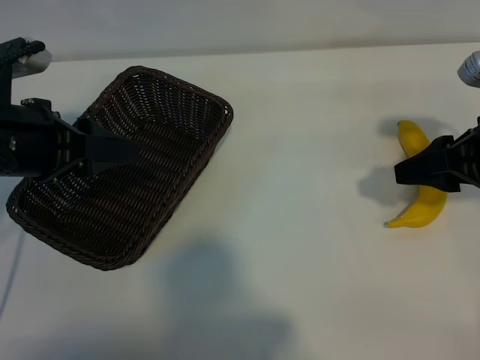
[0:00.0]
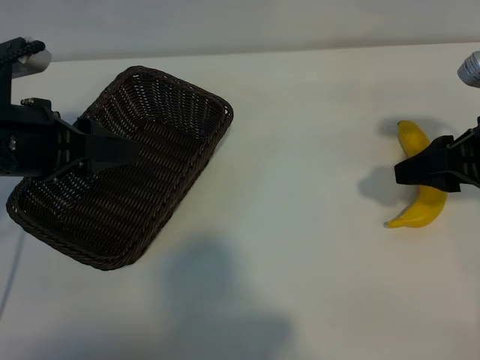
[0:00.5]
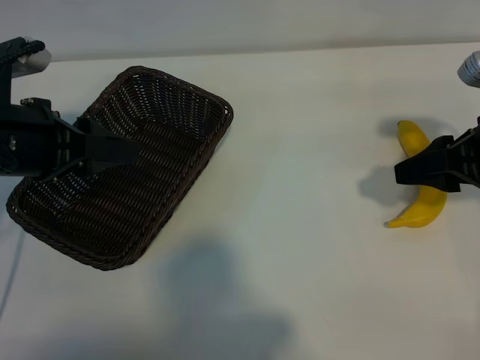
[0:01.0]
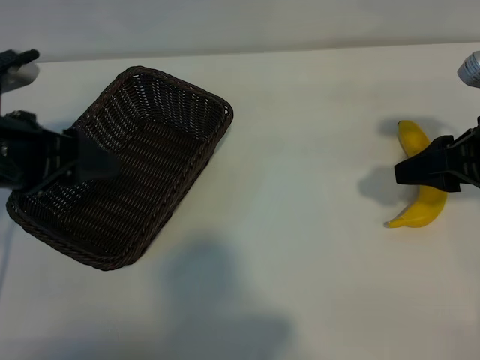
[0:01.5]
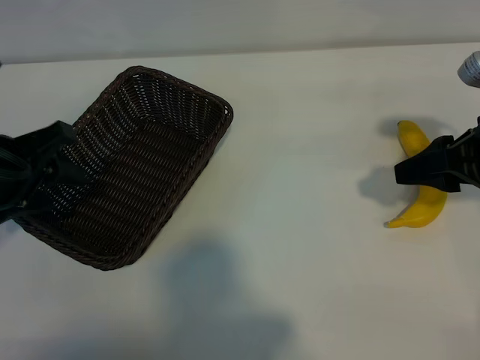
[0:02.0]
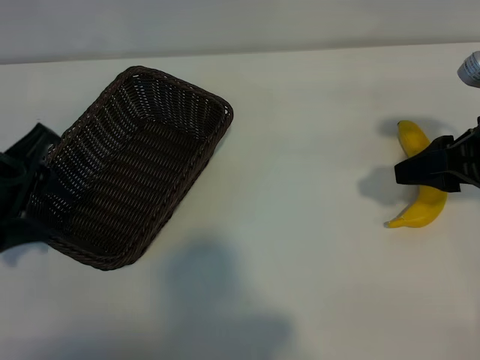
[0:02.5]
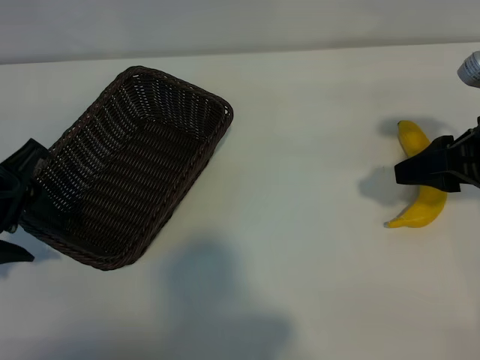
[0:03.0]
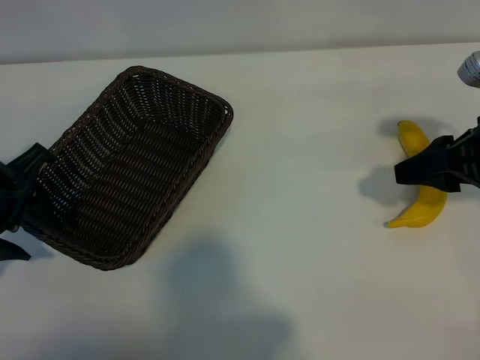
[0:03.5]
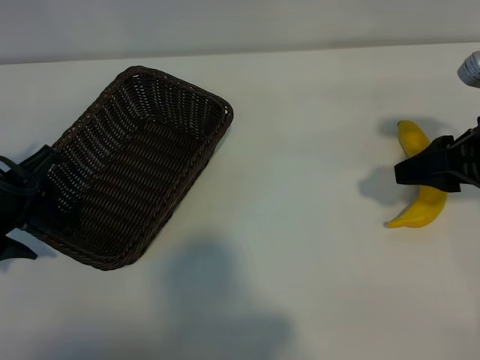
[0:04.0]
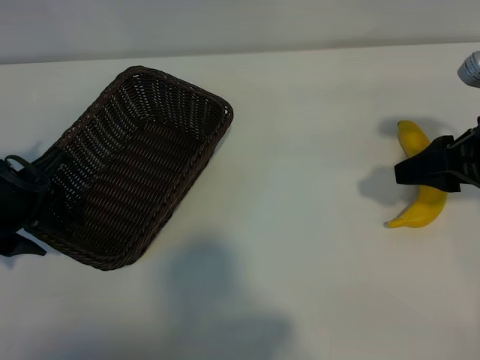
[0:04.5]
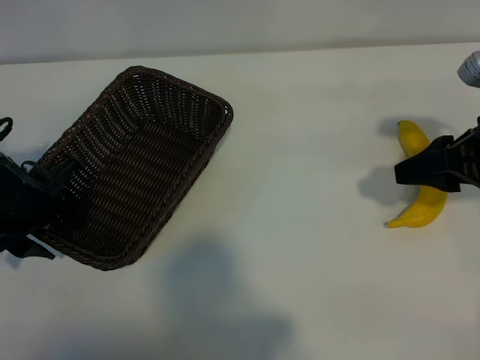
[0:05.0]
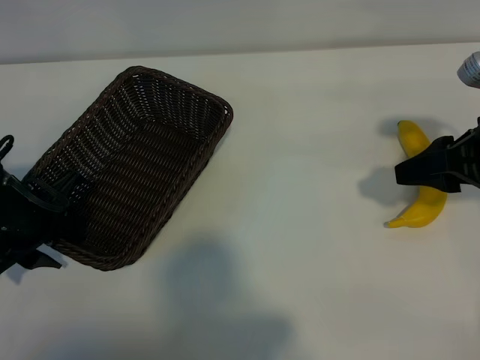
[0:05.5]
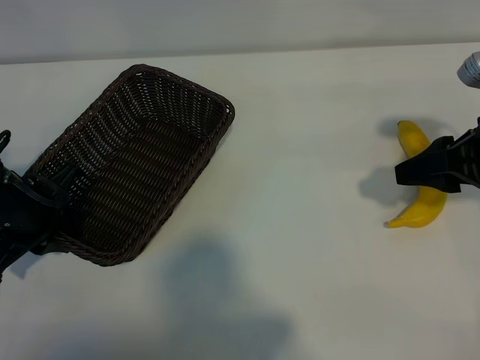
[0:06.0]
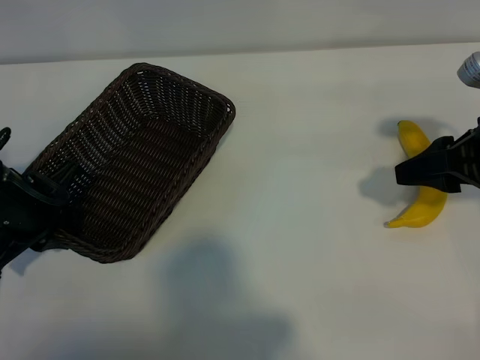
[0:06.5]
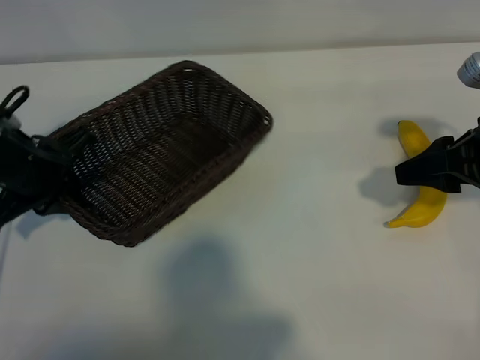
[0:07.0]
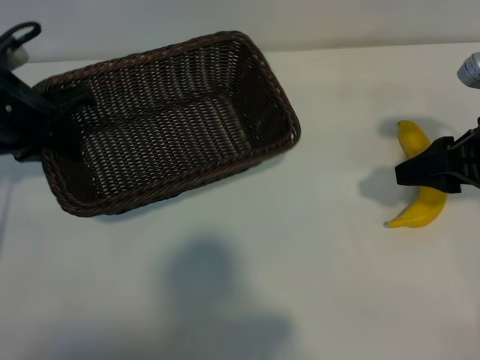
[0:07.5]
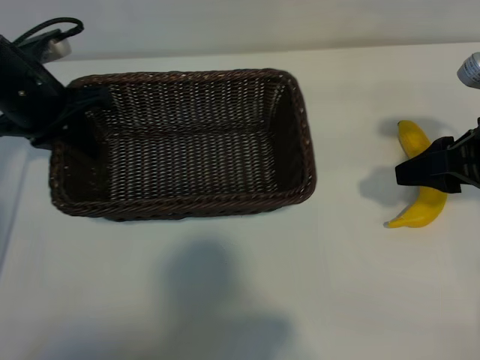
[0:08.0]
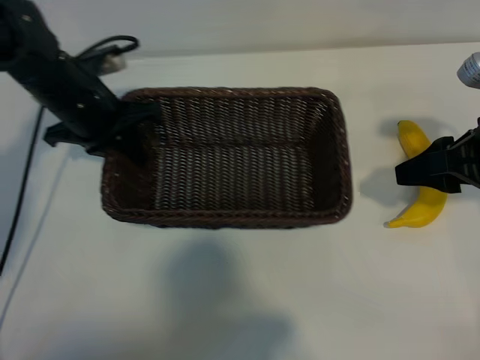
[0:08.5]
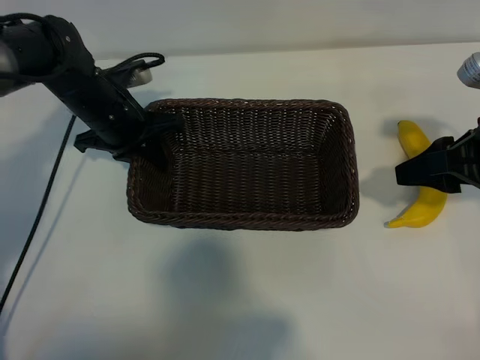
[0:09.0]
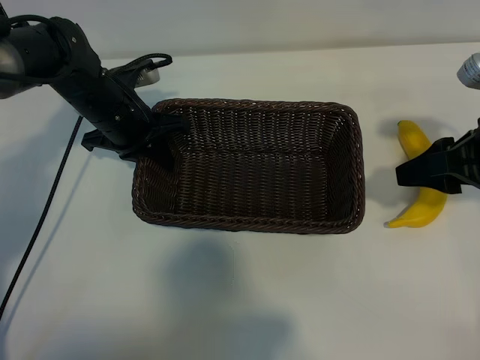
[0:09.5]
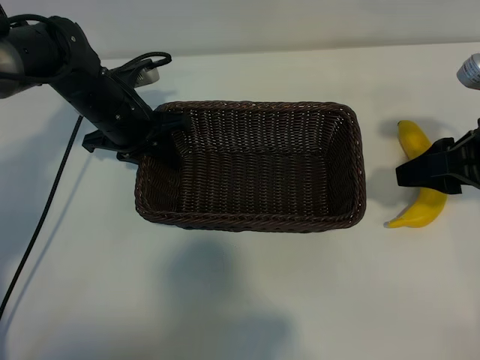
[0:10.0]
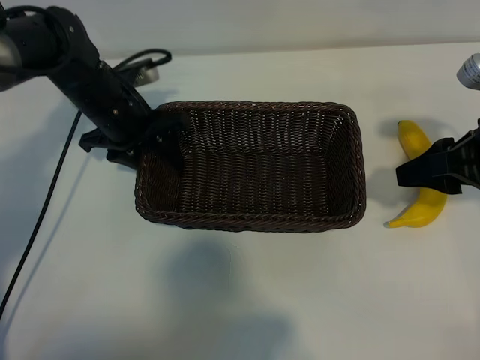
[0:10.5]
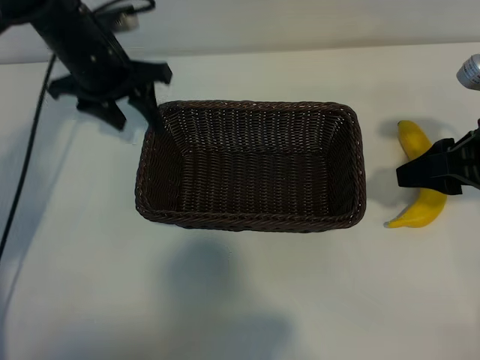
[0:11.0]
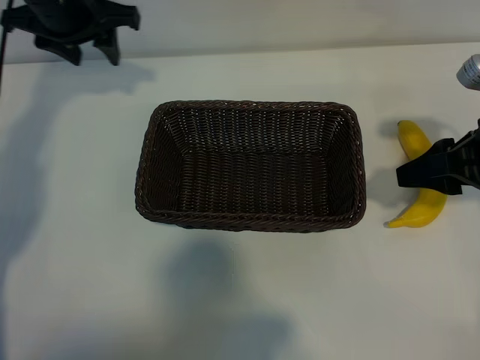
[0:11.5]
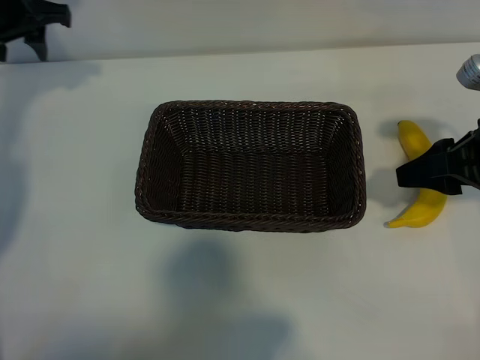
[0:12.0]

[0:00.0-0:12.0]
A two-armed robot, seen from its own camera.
Task of the whole recording: pick up the banana and put it into the basket.
Step, 0:01.0 to 0:06.0: Grasp the basket with the left gripper.
Step, 0:07.0 to 0:10.5: Place the basket in the center of the table with the left gripper.

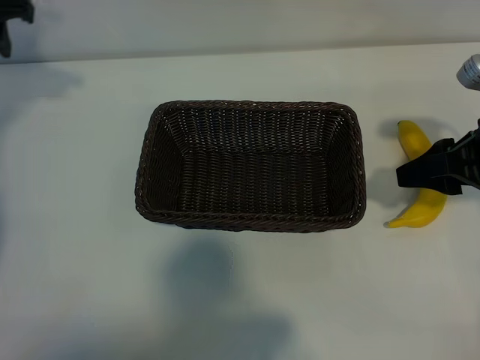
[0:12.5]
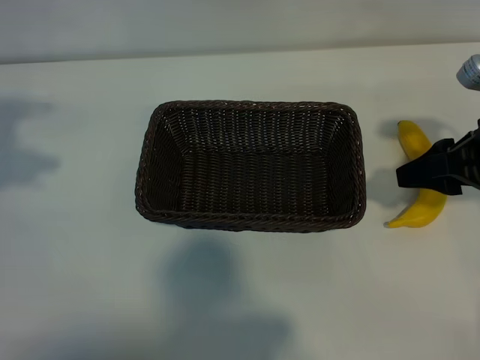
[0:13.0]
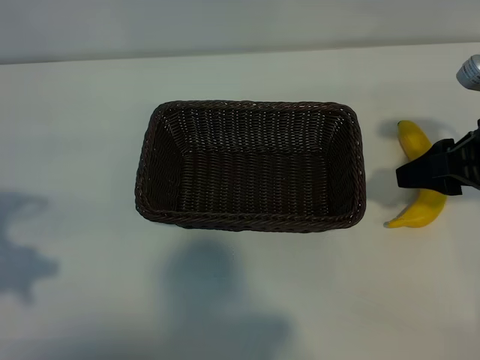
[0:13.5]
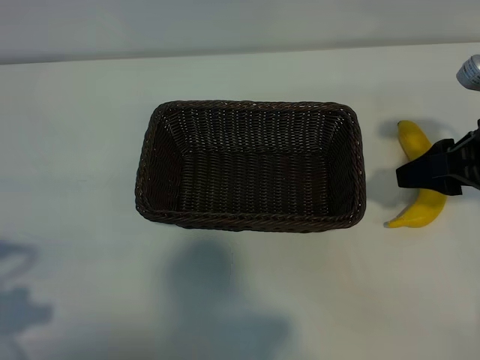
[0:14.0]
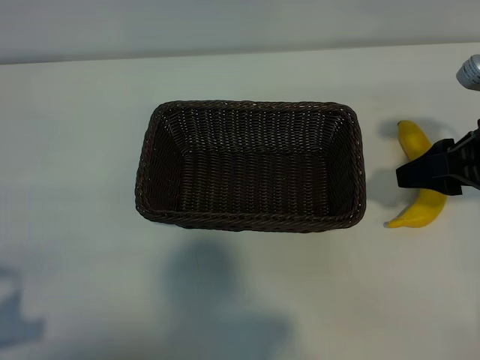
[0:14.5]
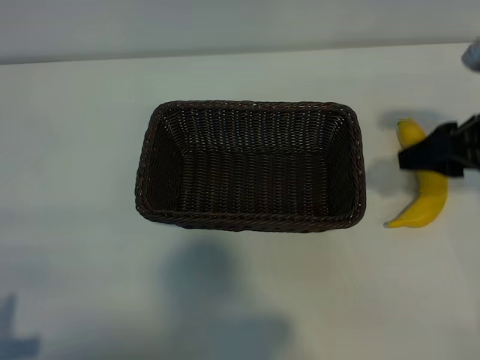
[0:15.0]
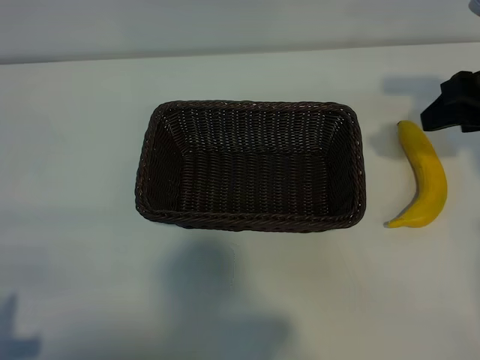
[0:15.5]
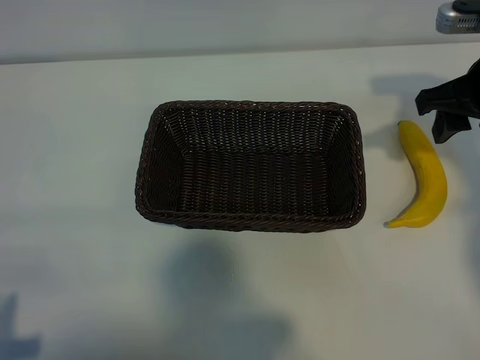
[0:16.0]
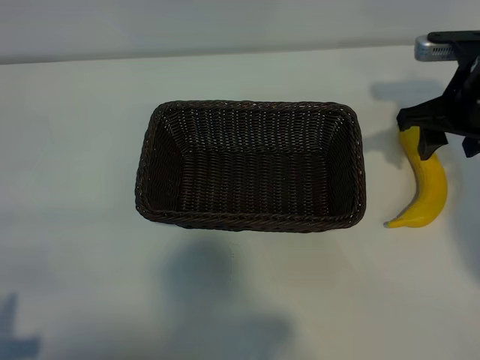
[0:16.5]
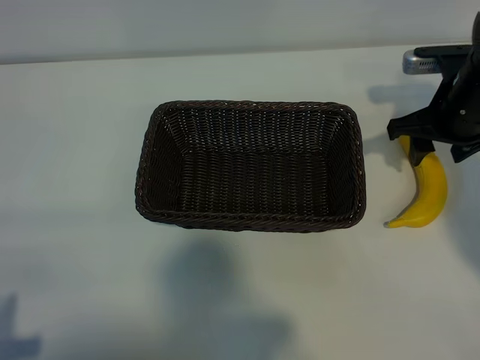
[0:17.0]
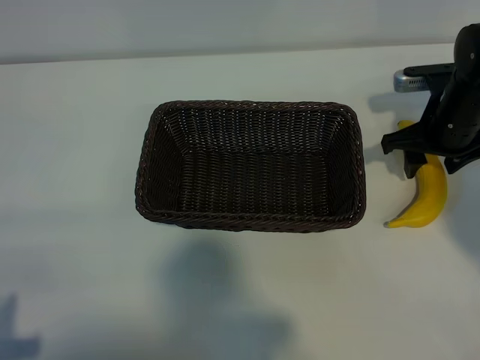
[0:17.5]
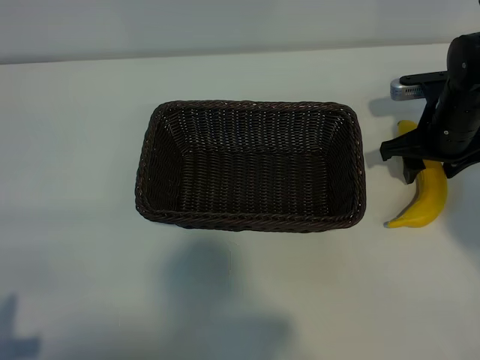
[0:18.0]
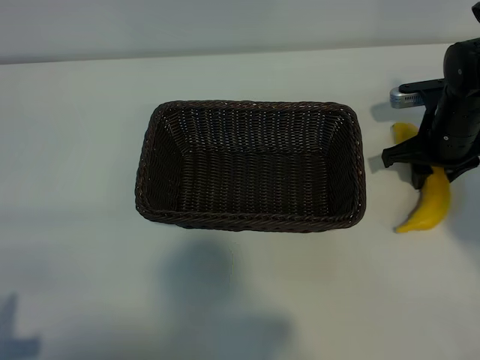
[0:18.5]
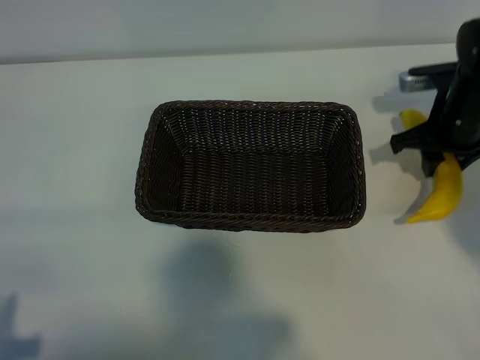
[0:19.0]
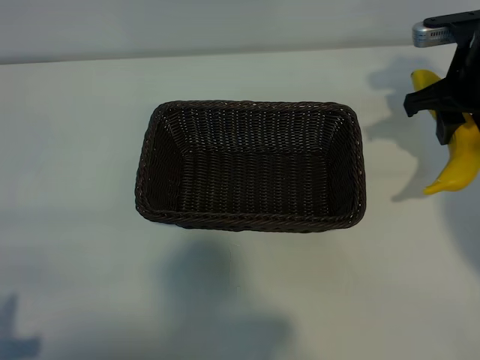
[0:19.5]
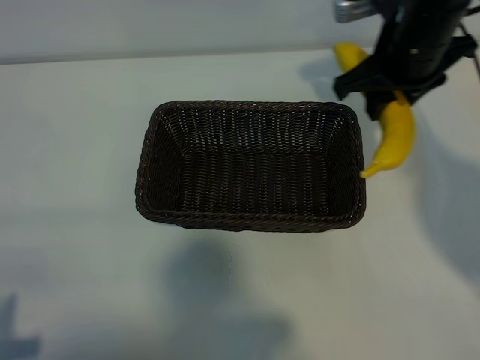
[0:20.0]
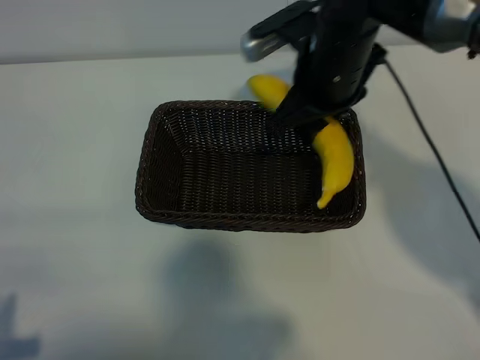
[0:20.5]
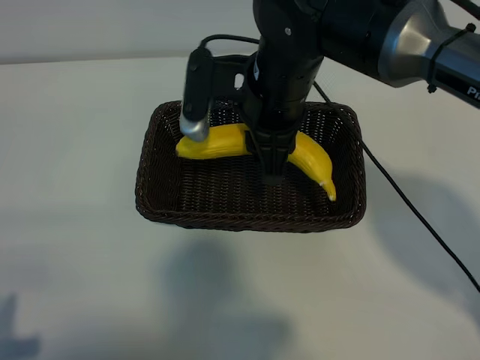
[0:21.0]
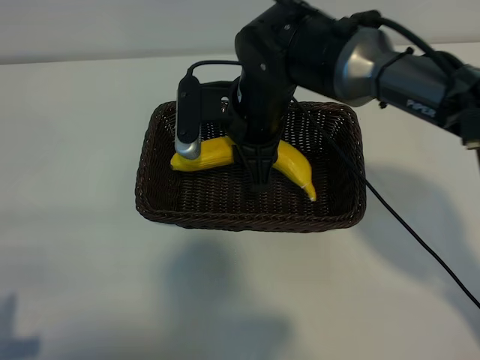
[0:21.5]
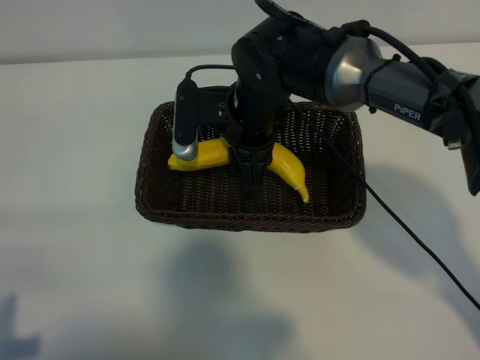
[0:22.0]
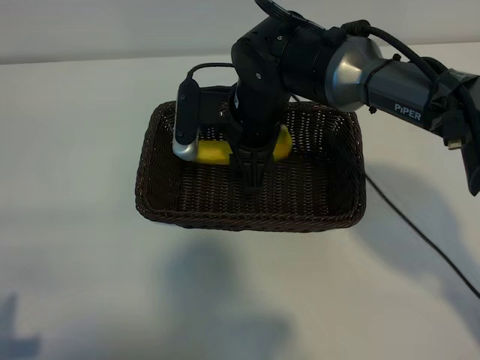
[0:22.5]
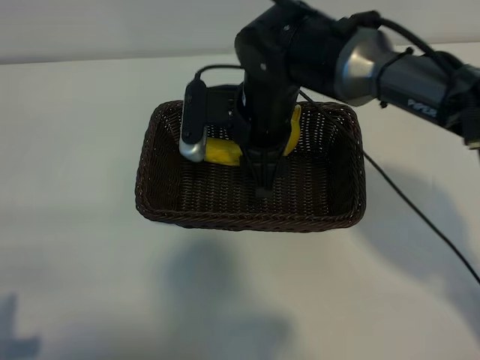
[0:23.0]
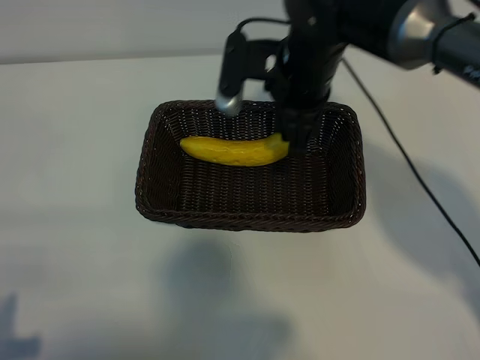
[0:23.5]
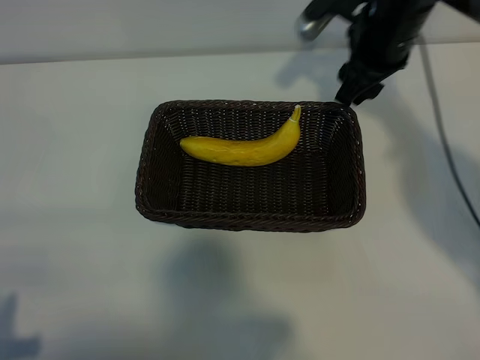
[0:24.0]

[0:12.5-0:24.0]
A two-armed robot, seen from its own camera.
Task of the whole recording: pick up the banana and put it into the basket.
Step, 0:12.5 to 0:18.5: Grasp the banana with right gripper.
Step, 0:19.0 to 0:23.5: Place the banana in the basket with right gripper.
